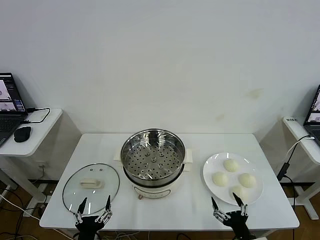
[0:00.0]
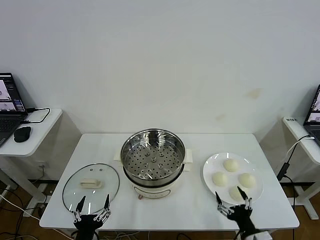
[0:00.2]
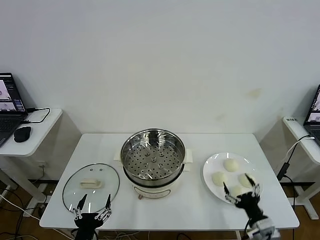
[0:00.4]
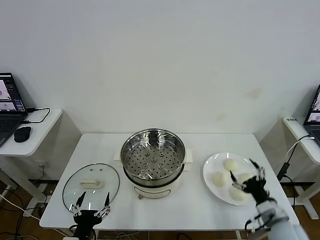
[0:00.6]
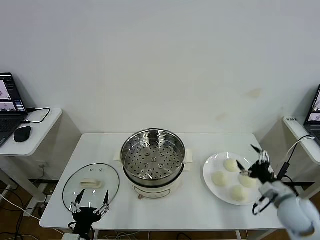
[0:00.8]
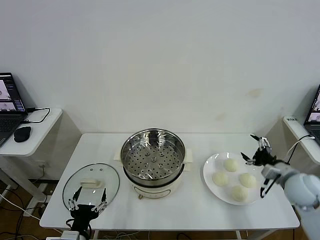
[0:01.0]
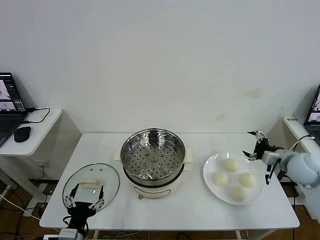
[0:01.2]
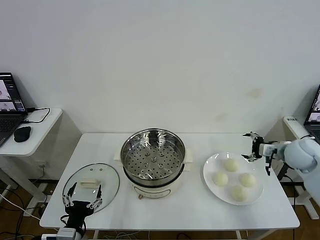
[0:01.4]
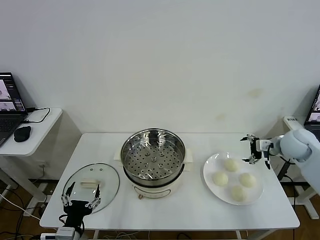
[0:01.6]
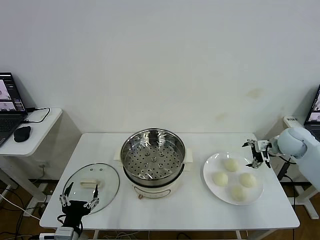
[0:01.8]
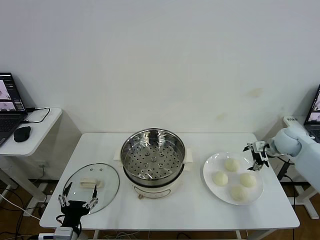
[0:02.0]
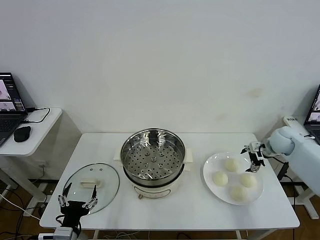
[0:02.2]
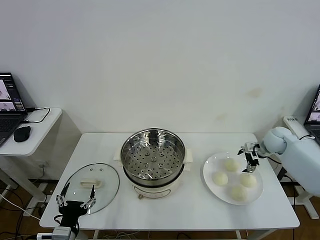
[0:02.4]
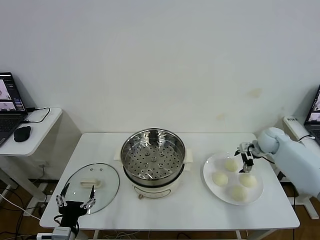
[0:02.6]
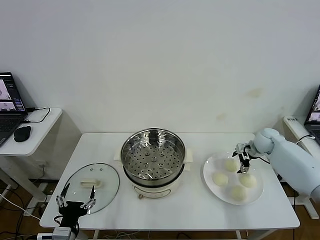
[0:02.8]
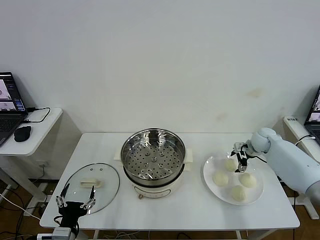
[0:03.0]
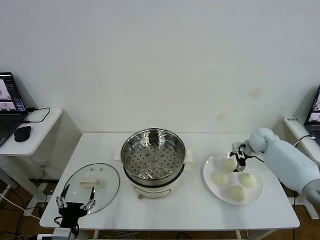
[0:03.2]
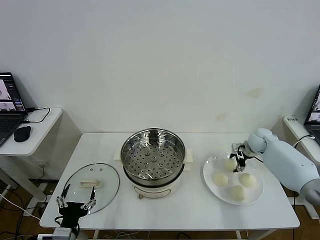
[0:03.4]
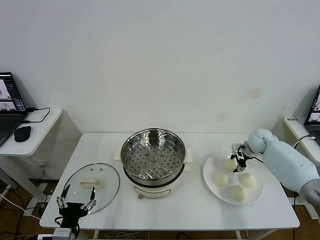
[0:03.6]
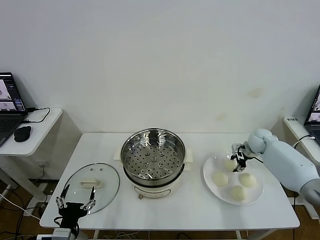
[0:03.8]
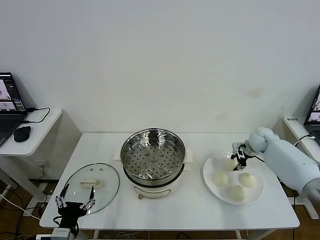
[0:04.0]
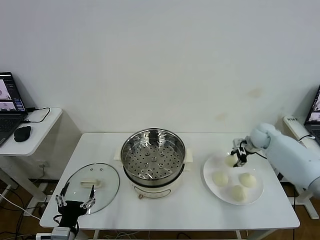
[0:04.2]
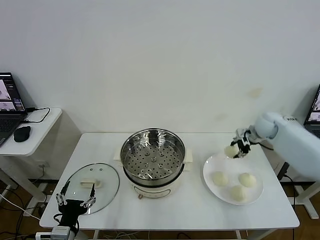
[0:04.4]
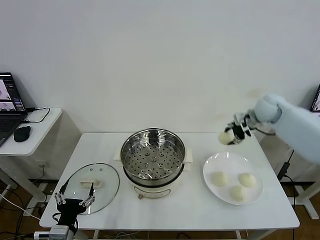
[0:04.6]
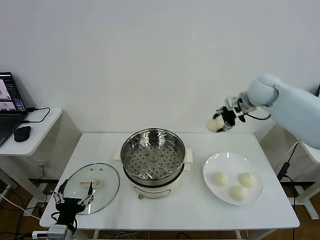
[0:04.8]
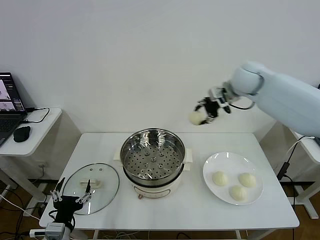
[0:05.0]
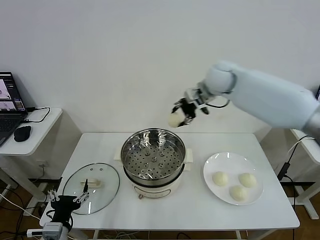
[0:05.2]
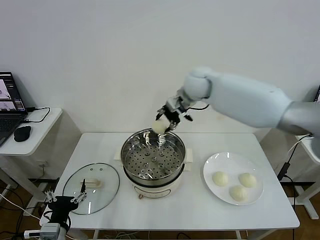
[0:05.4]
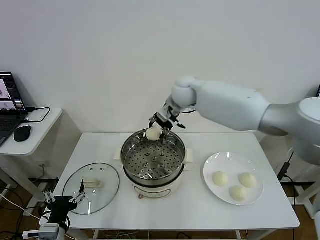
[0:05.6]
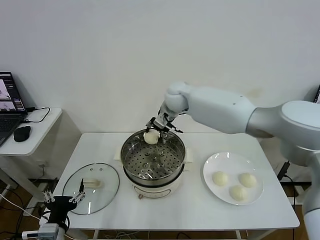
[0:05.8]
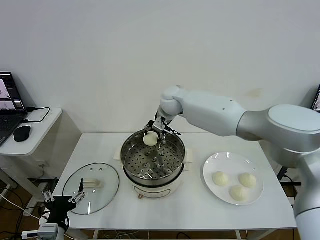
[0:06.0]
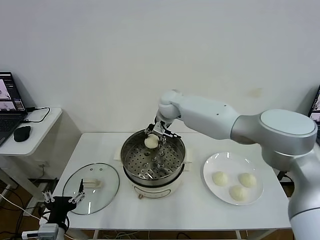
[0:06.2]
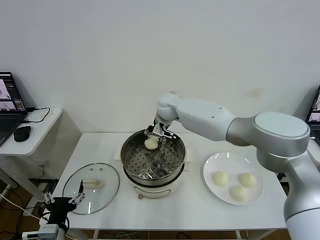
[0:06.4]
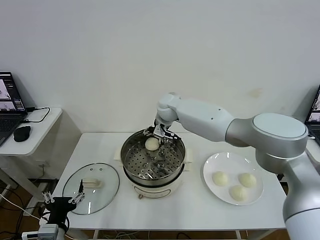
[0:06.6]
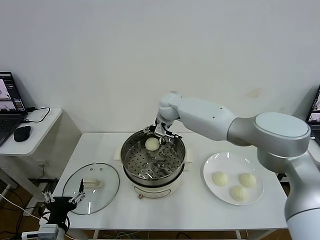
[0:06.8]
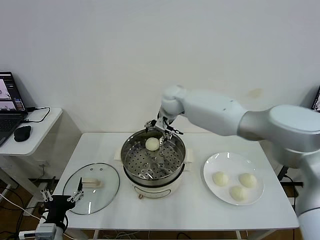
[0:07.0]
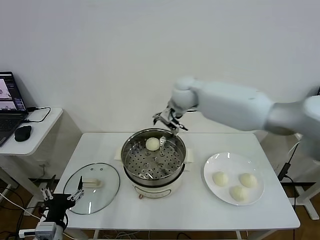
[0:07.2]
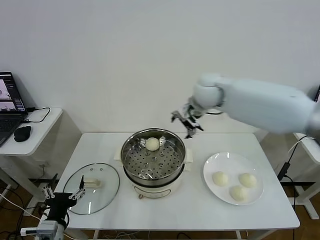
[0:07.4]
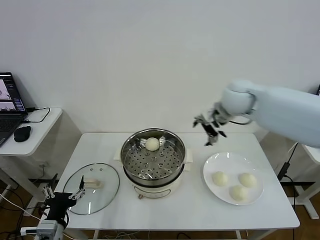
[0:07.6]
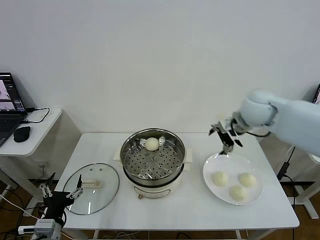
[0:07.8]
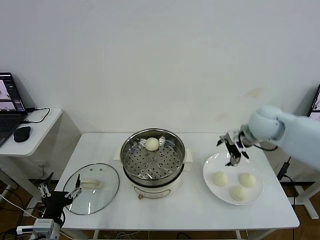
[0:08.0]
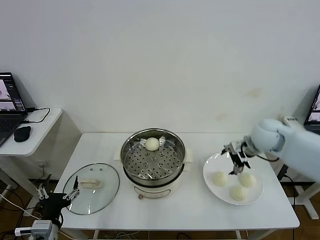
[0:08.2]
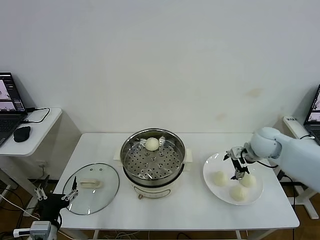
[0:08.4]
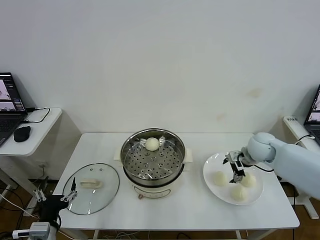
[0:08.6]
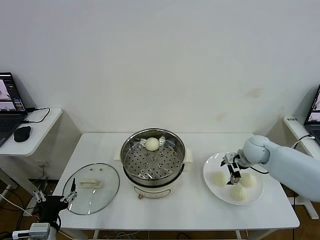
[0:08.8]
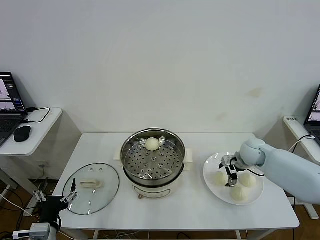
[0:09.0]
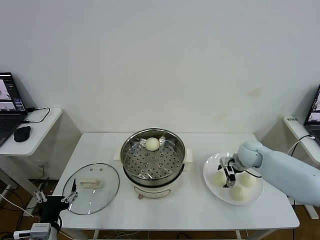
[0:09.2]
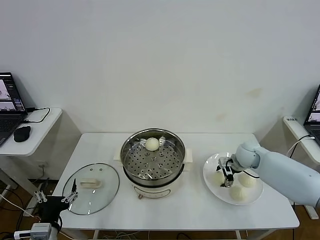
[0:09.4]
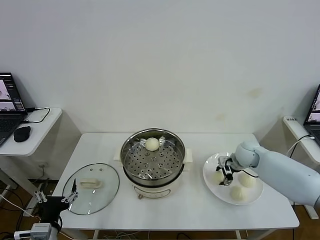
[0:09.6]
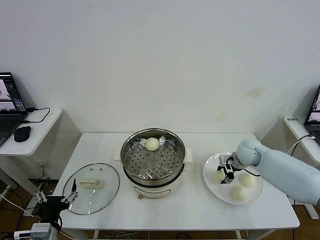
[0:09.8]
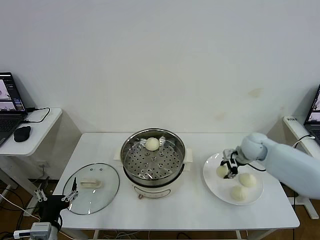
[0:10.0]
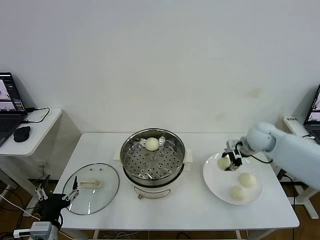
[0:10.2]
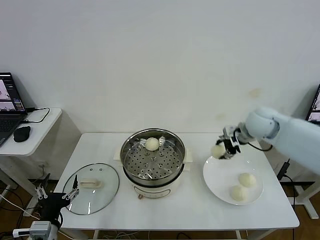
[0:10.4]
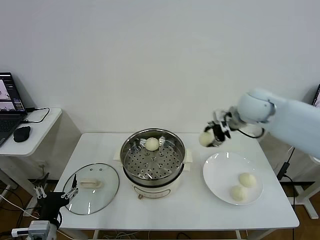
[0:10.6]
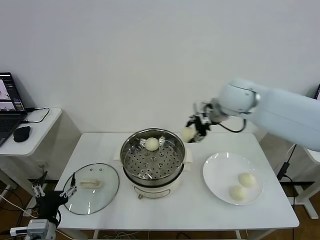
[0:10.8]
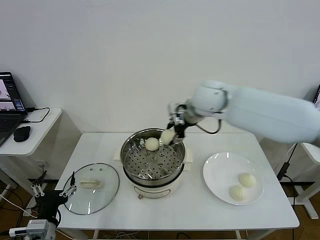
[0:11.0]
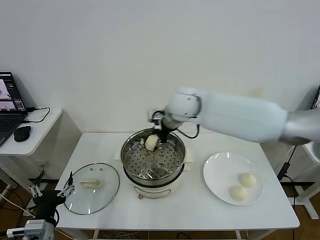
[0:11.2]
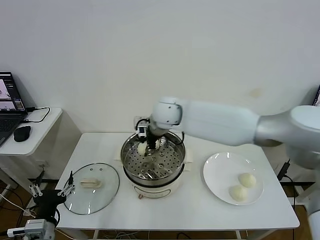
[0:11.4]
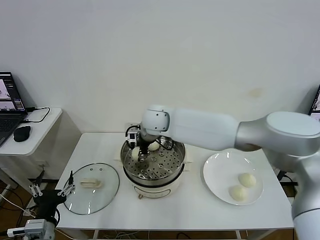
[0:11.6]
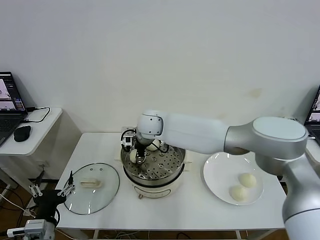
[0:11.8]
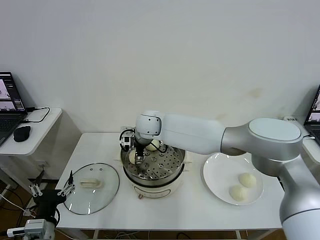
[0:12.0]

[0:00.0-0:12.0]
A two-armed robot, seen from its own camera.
Step, 0.0 to 3.8 s: Grasp the baozi in the plate with right gripper.
Step, 4.0 to 6.8 s: Place the baozi on the steamer with right gripper.
Step, 7.0 to 9.6 s: Grasp the baozi in the plate with right gripper.
1.6 to 3.0 s: The right gripper moves downward and forward, roughly 10 cm.
3.0 to 4.4 s: The right gripper moves upward, approximately 15 cm, and closes up.
4.4 to 6.0 s: The right gripper goes about 35 cm to the left.
6.0 to 7.6 s: The right gripper shifts approximately 25 cm to the right and backward, and opens up.
7.6 to 9.0 s: The right gripper moves downward, approximately 20 cm.
9.0 to 10.4 s: The right gripper moves upward, approximately 20 cm, and closes its fingers.
10.4 to 12.0 s: The right gripper travels to the left by about 35 cm, and opens up.

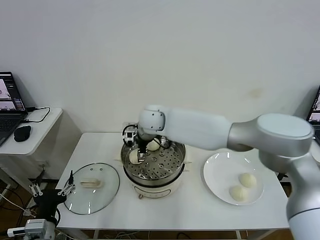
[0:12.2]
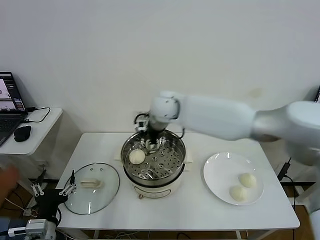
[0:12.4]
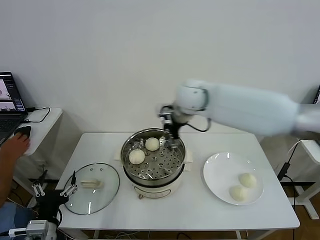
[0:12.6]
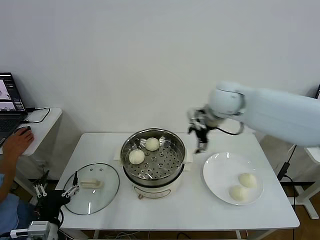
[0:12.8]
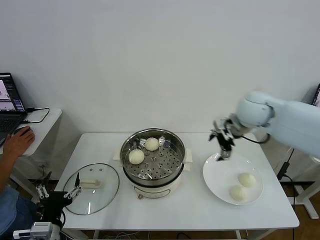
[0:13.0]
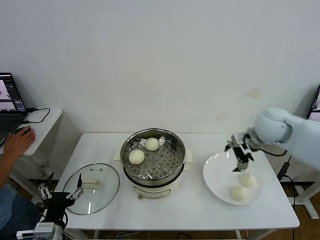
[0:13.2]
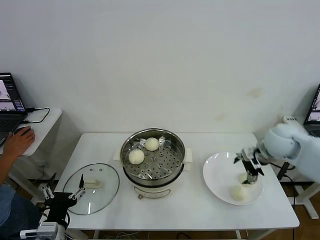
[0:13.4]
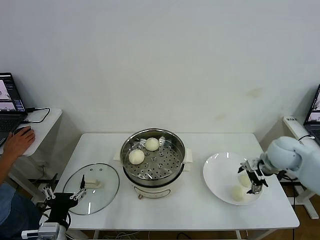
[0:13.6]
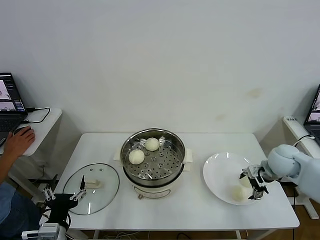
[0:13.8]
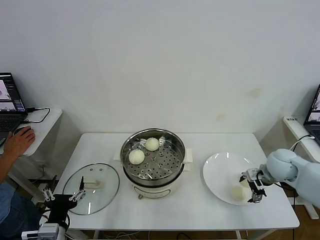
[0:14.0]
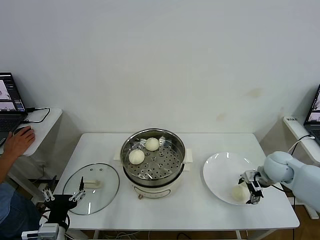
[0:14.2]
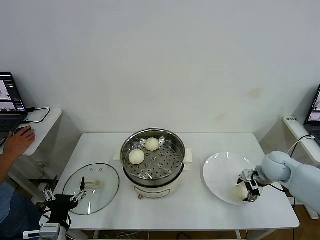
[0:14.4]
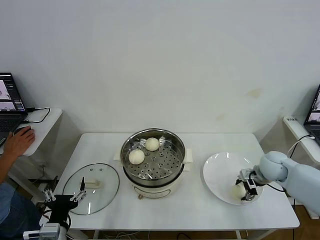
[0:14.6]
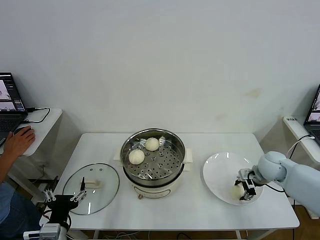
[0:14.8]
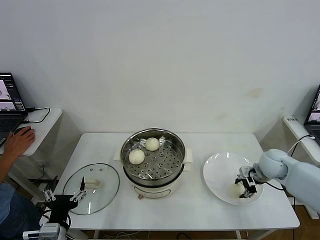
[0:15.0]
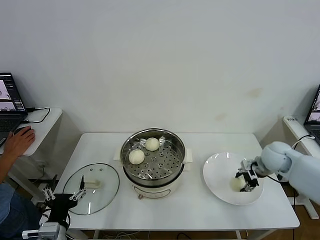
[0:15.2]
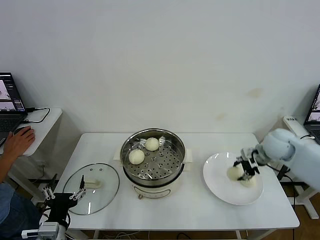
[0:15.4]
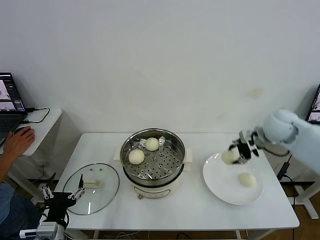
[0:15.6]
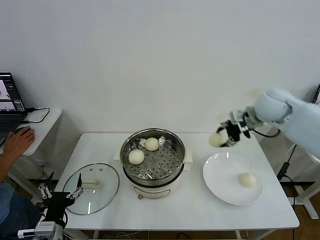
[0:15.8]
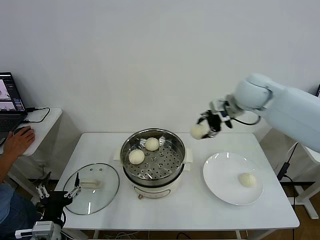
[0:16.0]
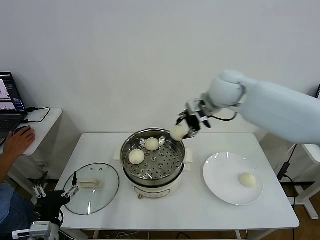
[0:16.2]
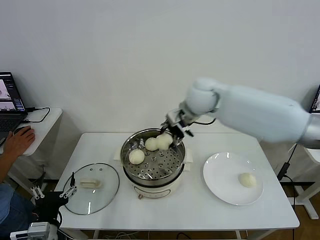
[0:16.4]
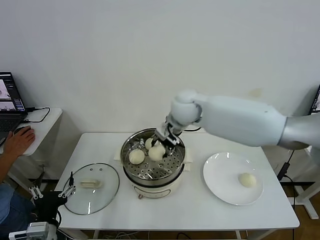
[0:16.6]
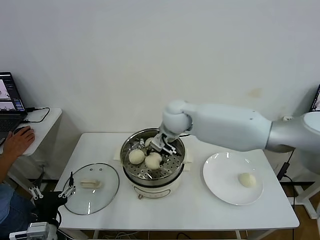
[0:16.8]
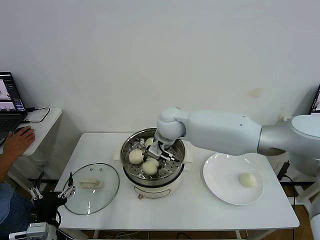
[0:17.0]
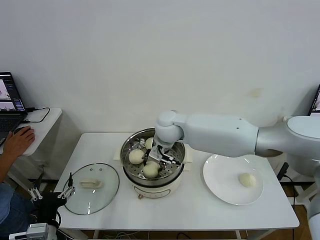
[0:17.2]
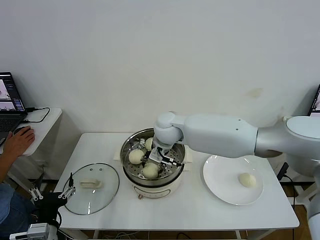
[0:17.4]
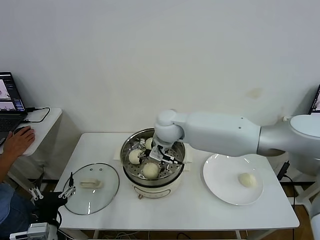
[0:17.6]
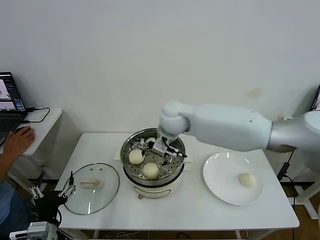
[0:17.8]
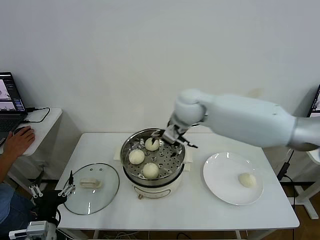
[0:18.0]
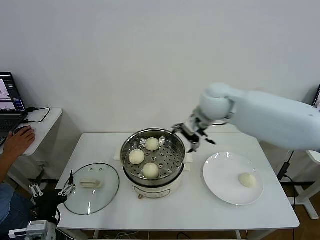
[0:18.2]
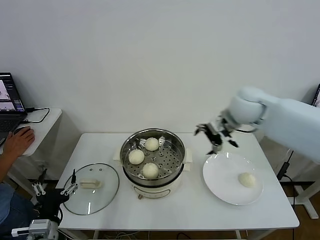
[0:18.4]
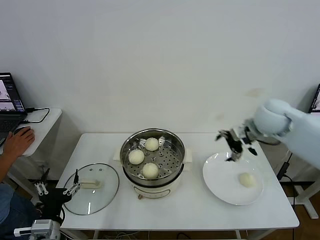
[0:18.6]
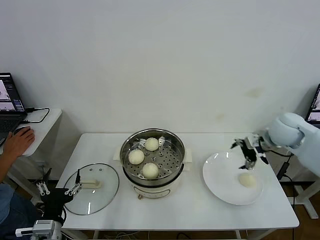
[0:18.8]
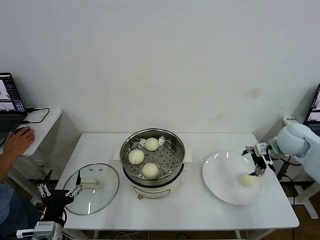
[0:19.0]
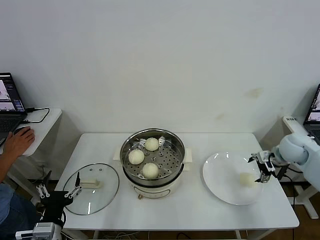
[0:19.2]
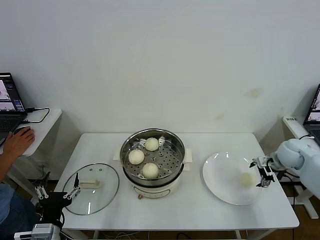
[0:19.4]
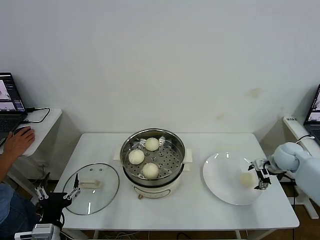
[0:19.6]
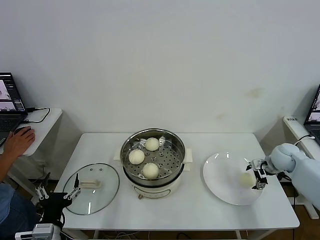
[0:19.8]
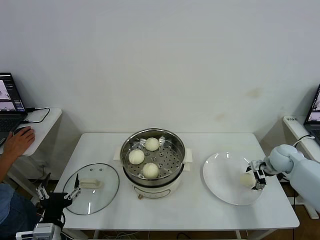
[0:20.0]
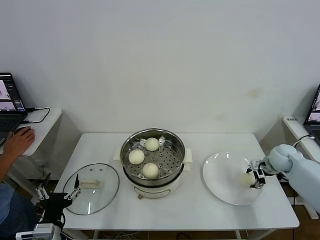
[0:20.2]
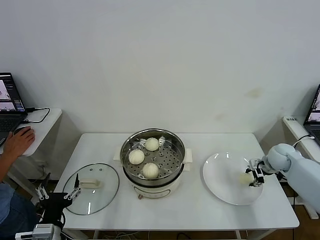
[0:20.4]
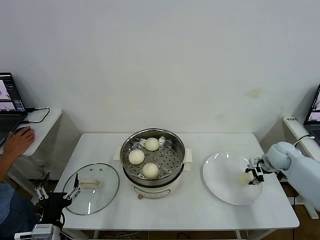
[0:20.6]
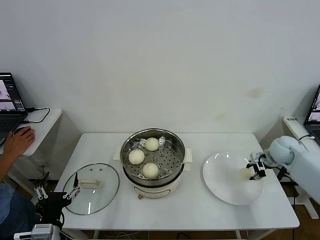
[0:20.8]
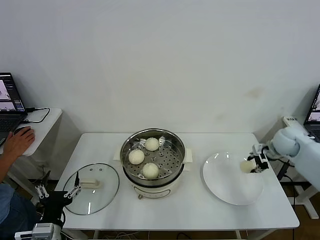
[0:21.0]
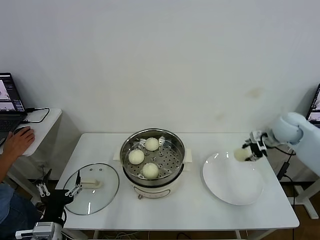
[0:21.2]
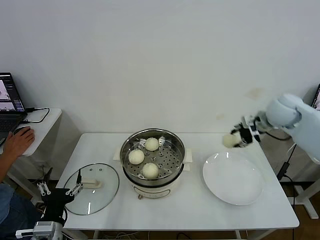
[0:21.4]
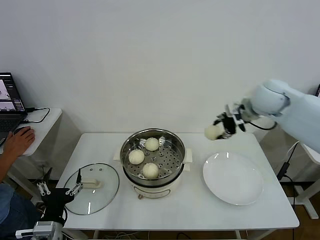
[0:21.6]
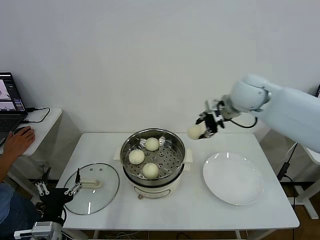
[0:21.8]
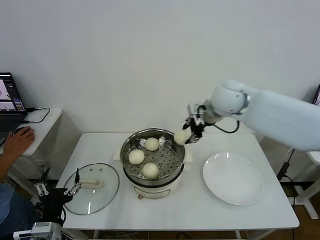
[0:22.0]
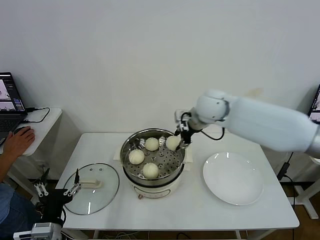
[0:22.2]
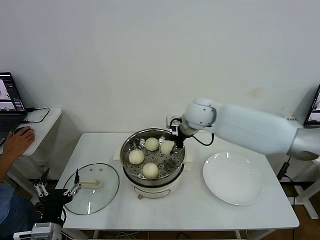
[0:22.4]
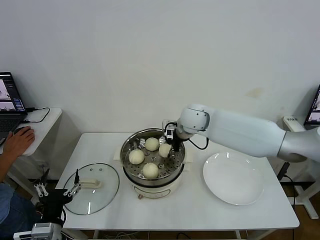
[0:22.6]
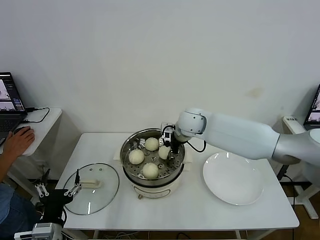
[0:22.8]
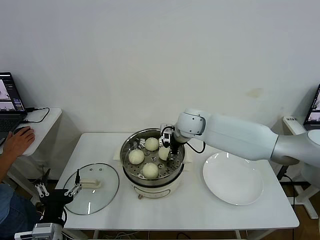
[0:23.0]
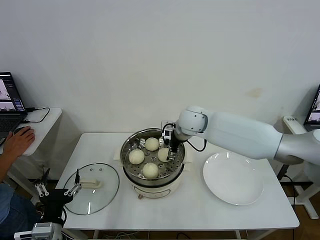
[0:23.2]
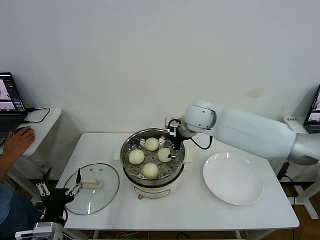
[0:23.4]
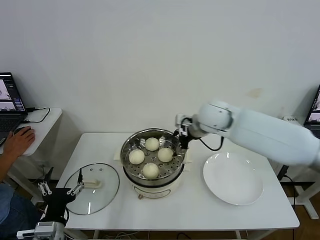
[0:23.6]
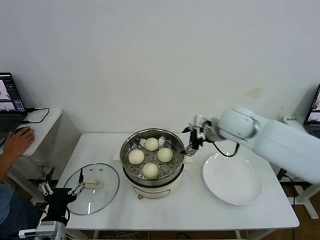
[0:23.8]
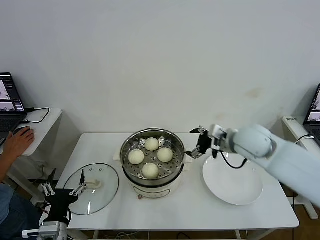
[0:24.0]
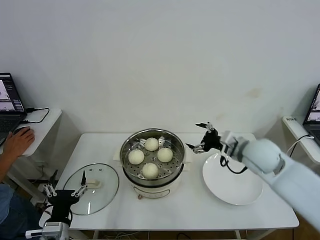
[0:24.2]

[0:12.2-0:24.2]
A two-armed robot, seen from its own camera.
Step, 12.4 to 14.8 s: Grasp the baozi in the plate with right gripper.
Step, 15.0 to 17.6 s: Place the baozi on the steamer with right gripper.
Step, 18.0 to 20.2 s: Grasp the baozi in the plate with right gripper.
Step, 20.6 to 23.4 s: Place the baozi on the steamer with right gripper.
12.2 to 13.8 s: The right gripper shifts about 40 cm to the right.
13.8 to 15.2 s: The right gripper closes.
15.2 to 16.6 s: The right gripper goes some 35 cm to the left and upward.
16.6 to 18.2 s: The right gripper is displaced to the right by some 10 cm, and opens.
18.2 to 19.8 s: The right gripper shifts roughly 35 cm to the right and downward.
19.8 to 21.2 s: The right gripper heads upward, covering roughly 15 cm, and closes.
21.2 to 22.6 s: The right gripper goes approximately 30 cm to the left.
22.6 to 24.2 s: The right gripper goes some 20 cm to the right and backward, and opens up.
